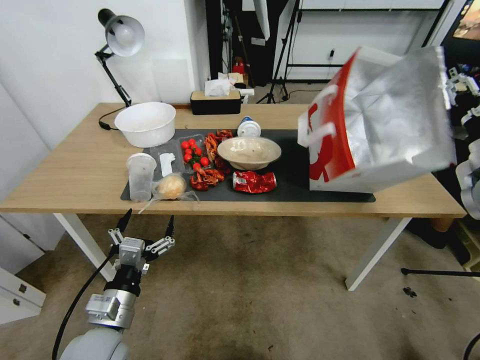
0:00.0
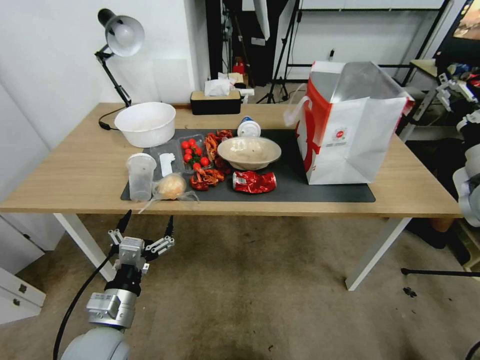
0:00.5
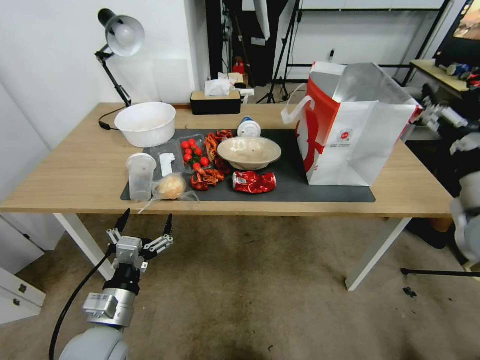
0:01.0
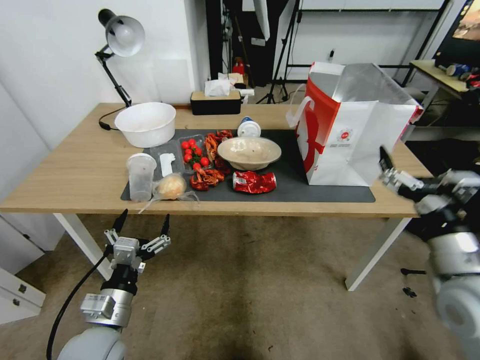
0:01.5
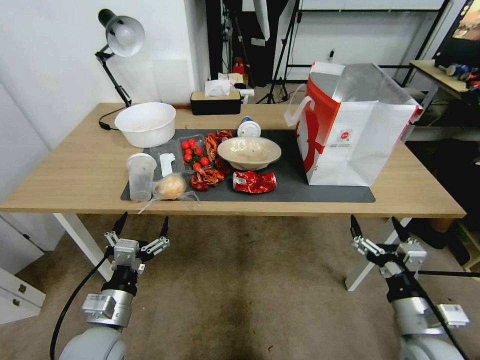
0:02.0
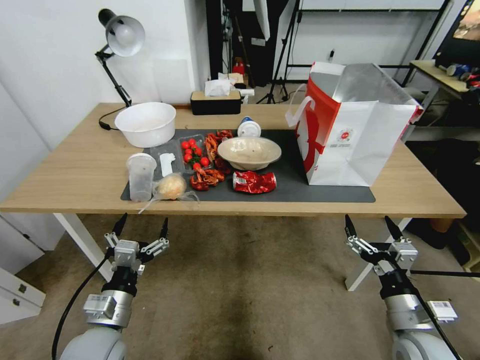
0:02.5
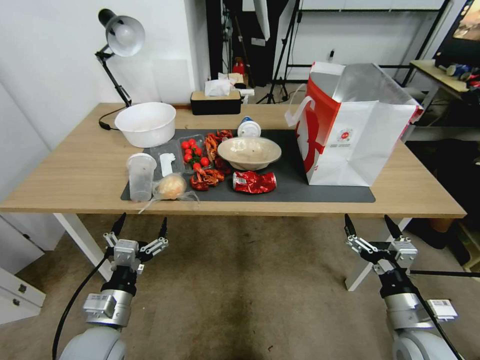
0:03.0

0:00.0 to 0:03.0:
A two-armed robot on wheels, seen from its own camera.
Task of the whole recording: Pick up the food delivery bag from the floor and place it on the table.
0:00.0 to 0:01.5: The right gripper is displaced backward, downward and to the left by about 20 cm, and opens up.
0:01.5 to 0:03.0: The right gripper moves downward, approximately 15 cm.

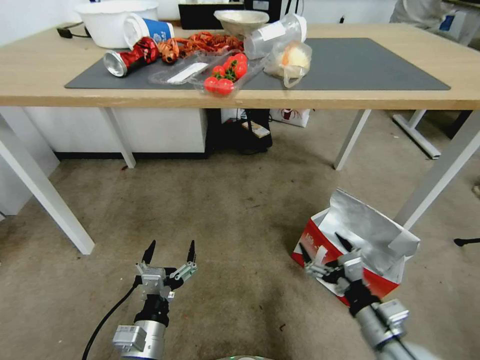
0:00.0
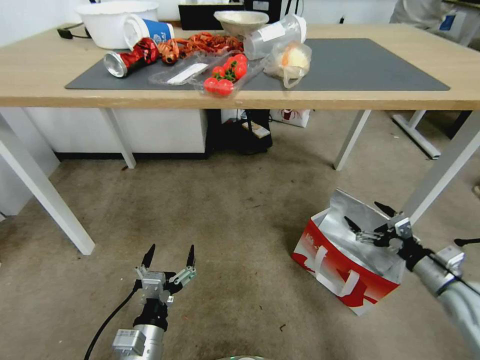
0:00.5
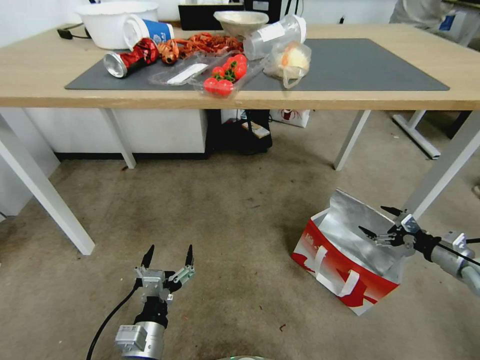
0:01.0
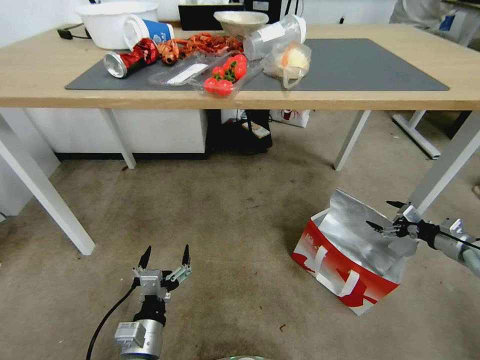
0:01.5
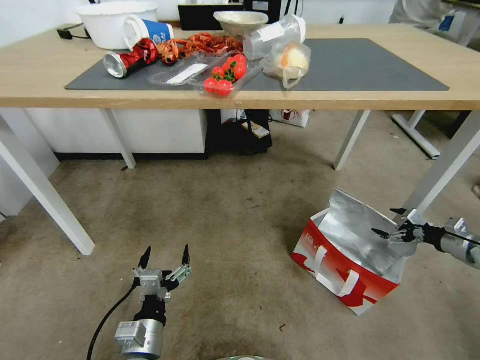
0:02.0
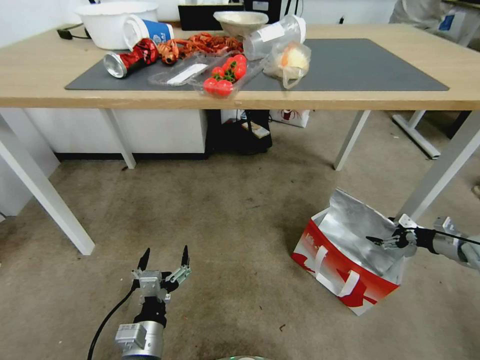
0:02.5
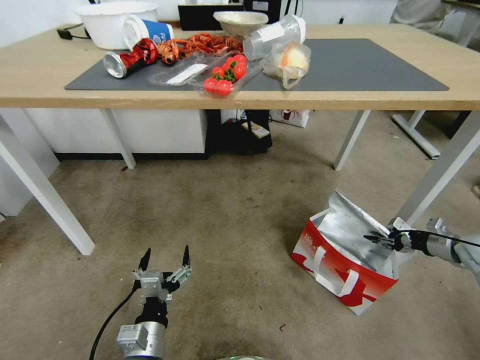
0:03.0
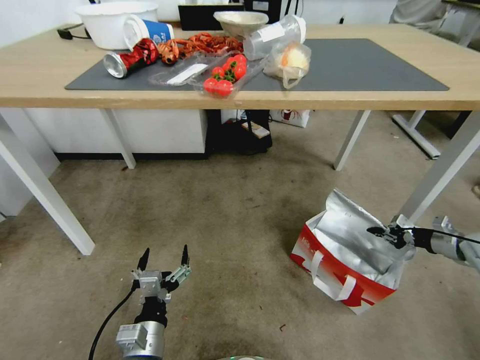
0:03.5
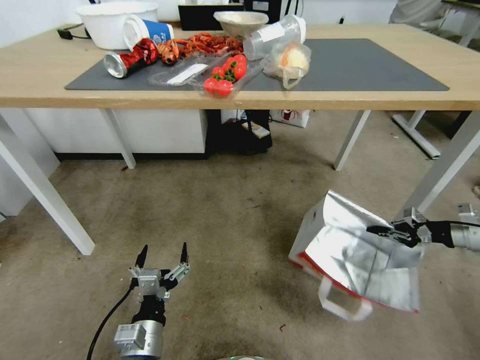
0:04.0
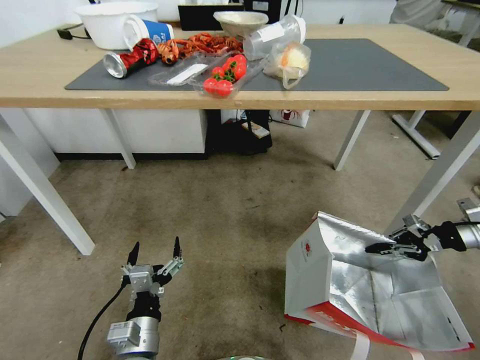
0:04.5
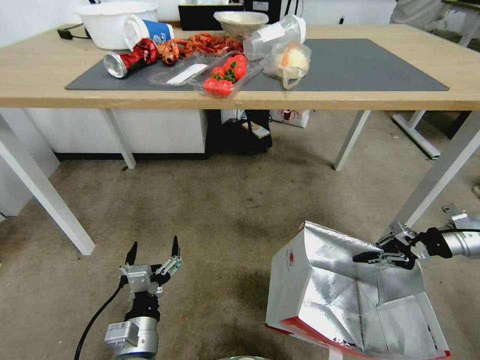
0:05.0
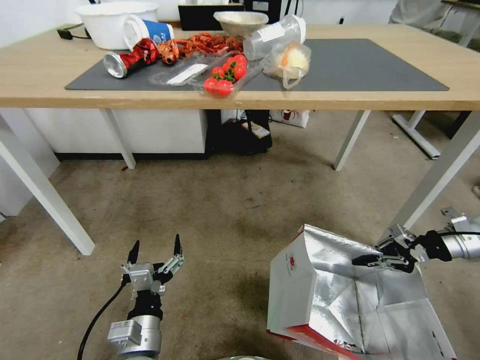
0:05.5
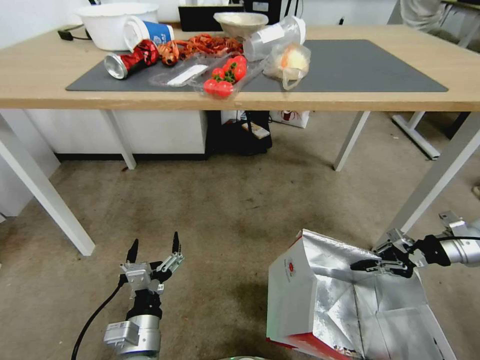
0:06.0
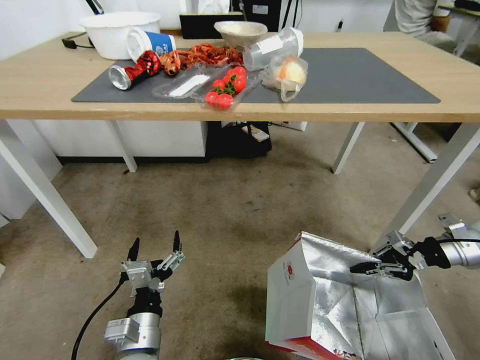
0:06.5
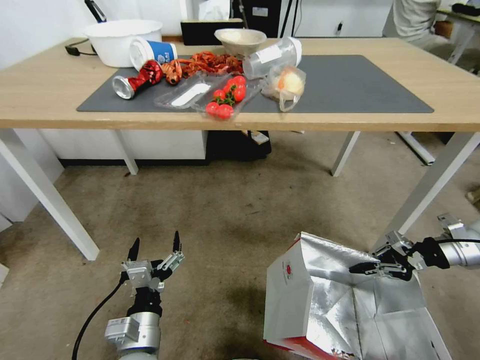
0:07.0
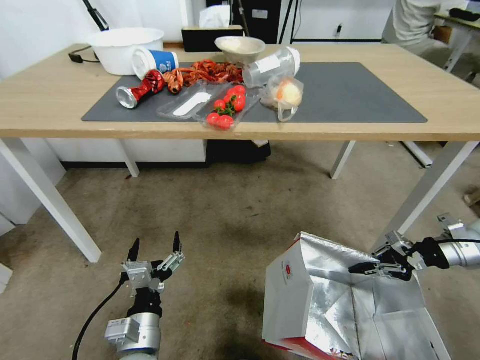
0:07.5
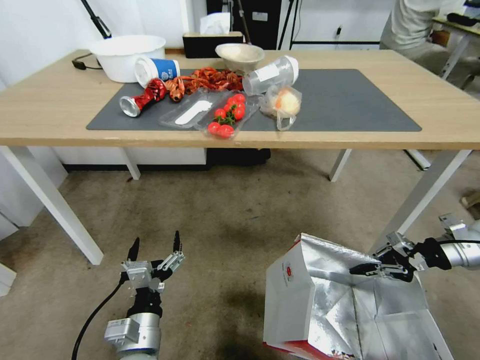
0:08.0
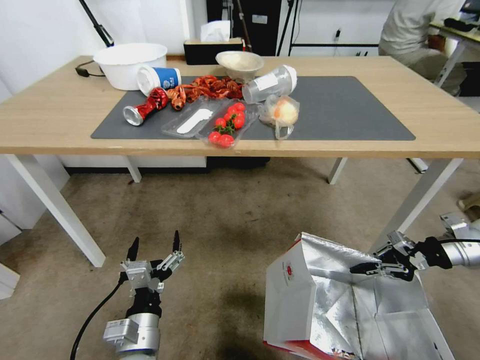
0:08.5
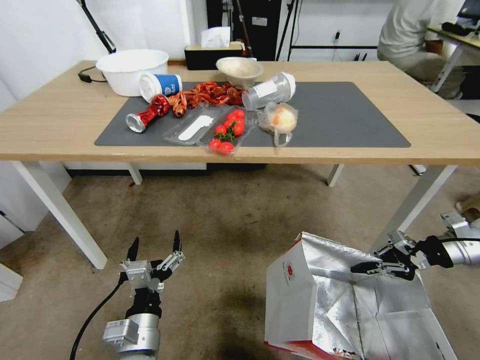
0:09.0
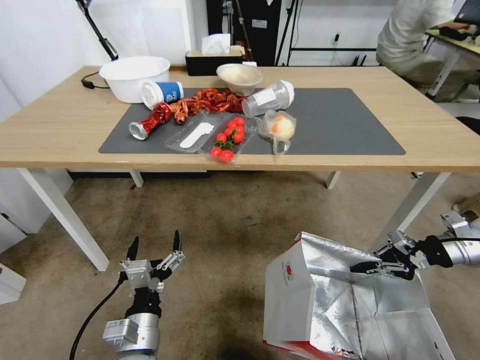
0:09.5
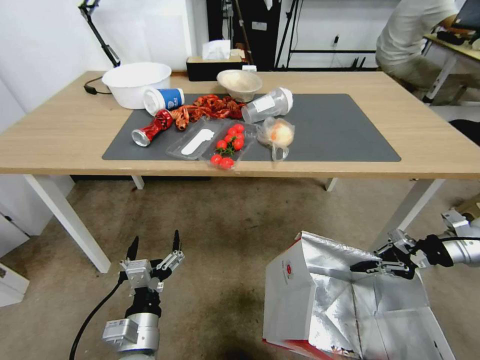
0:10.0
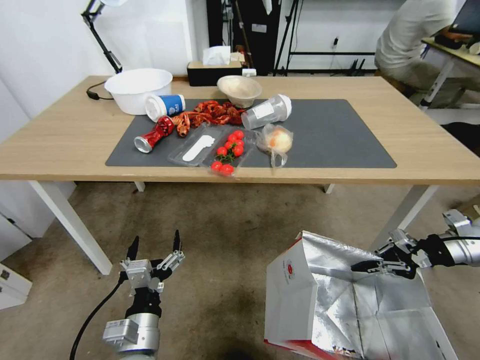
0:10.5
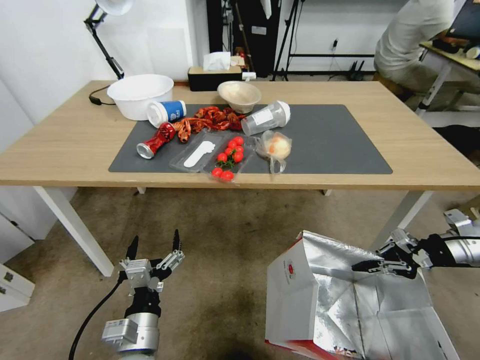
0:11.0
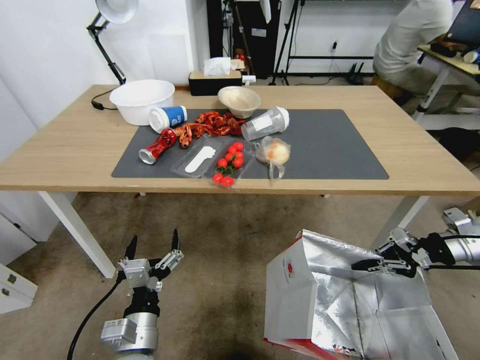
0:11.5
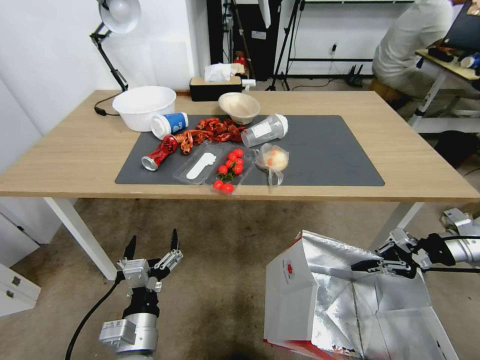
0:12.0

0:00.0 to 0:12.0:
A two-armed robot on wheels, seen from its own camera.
Task of the whole recording: Pick up the food delivery bag from the floor and place it on the table.
0:00.0 to 0:02.0: The right gripper moves to the right and forward, approximately 40 cm.
0:02.0 to 0:04.0: The right gripper shifts by approximately 5 cm, and closes up.
0:04.0 to 0:06.0: The right gripper travels to the left by some 10 cm.

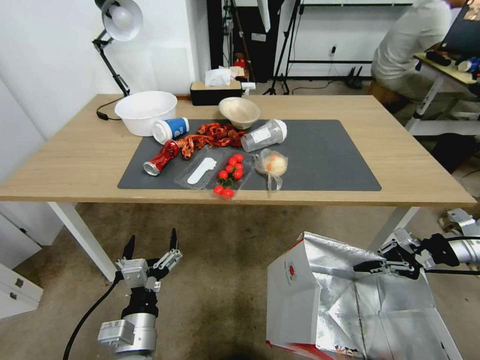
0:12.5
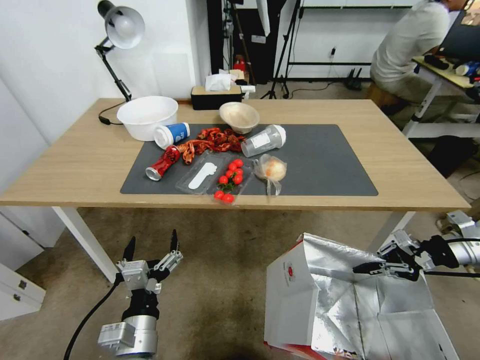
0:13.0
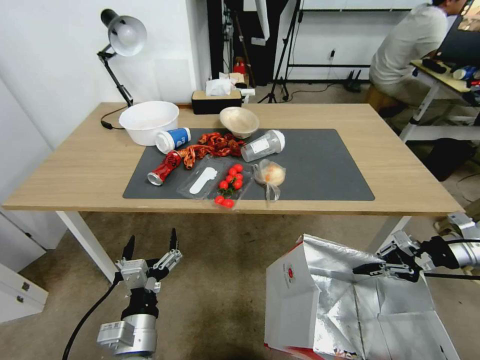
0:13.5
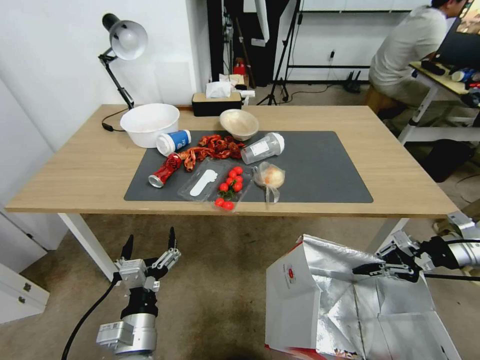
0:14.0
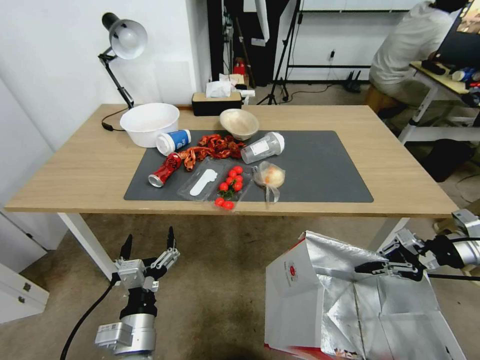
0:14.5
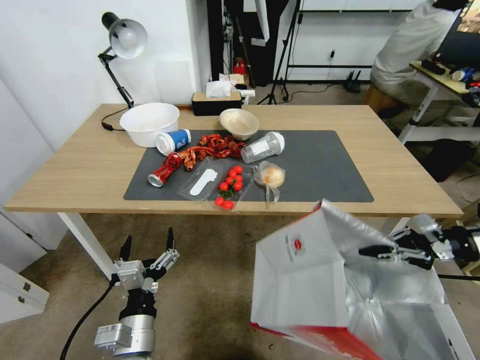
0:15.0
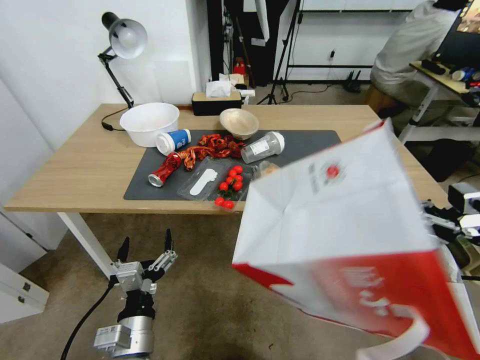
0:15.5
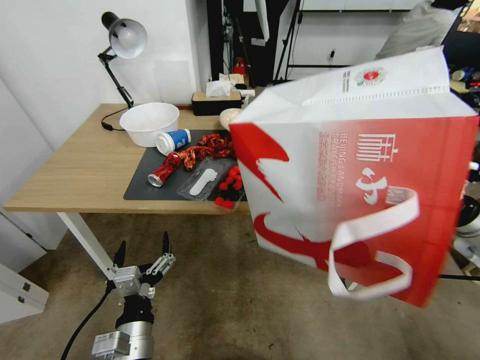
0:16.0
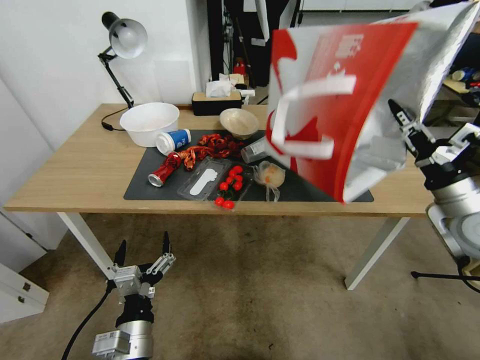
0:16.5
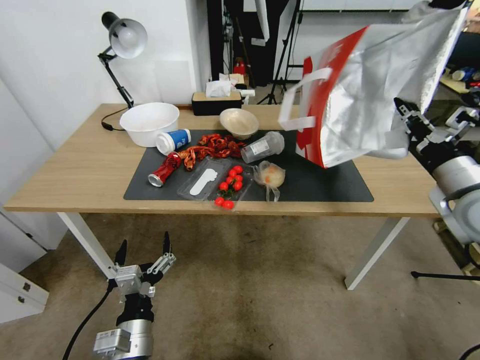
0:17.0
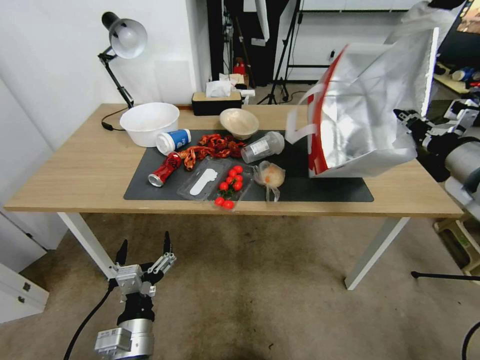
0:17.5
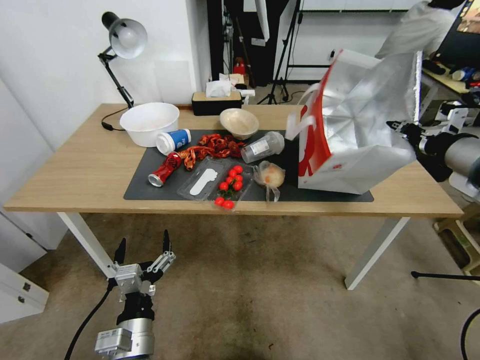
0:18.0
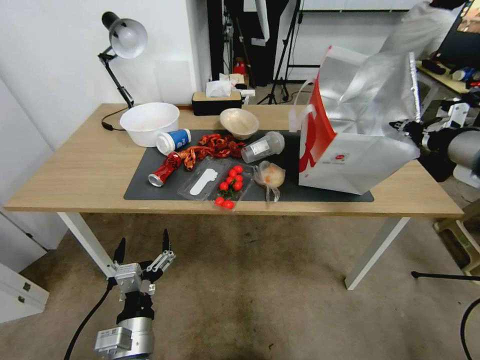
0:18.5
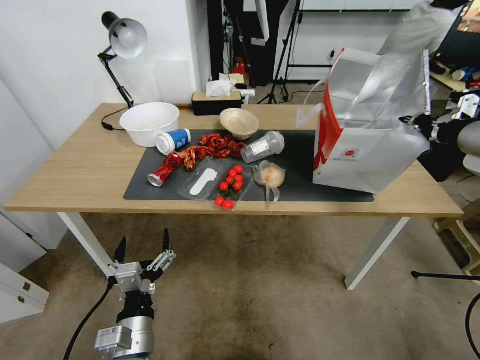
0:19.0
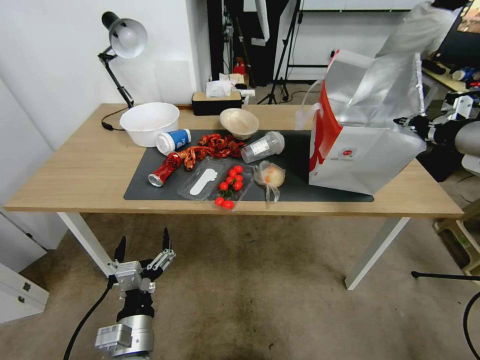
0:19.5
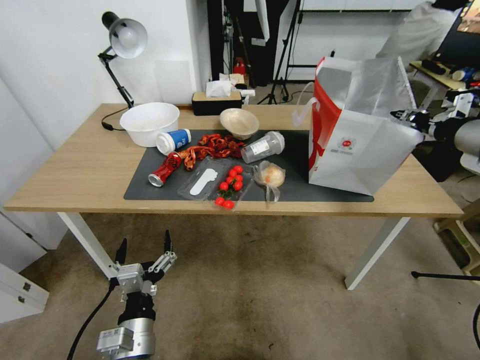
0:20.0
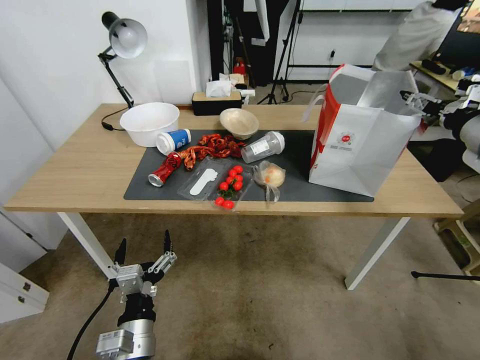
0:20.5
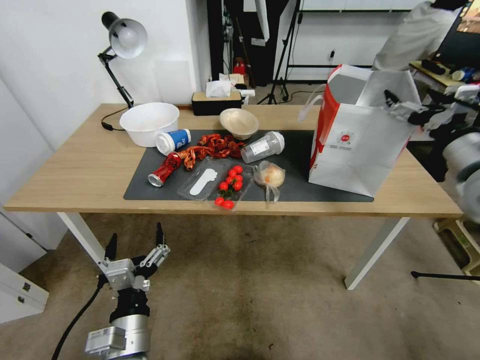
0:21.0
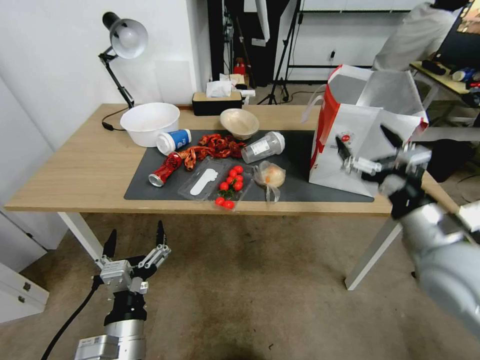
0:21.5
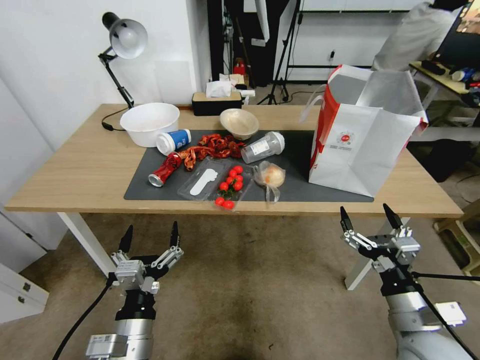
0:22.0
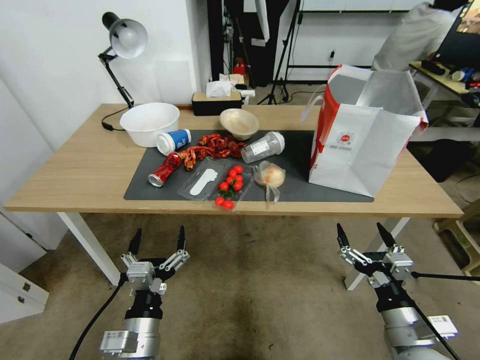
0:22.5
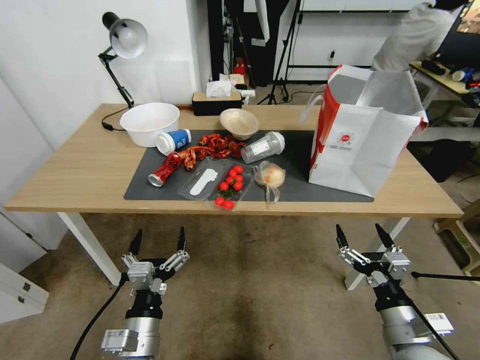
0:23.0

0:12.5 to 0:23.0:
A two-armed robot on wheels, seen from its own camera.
Task of the whole recording: Pick up the food delivery bag from the floor and place it on the table.
0:14.5 to 0:16.5: The right gripper heads to the left, covering roughly 10 cm.
0:16.5 to 0:19.0: The right gripper moves upward, approximately 15 cm.
0:19.0 to 0:21.0: The right gripper goes approximately 5 cm downward, and opens its fingers.
0:21.0 to 0:23.0: The right gripper shifts about 30 cm downward and backward.
